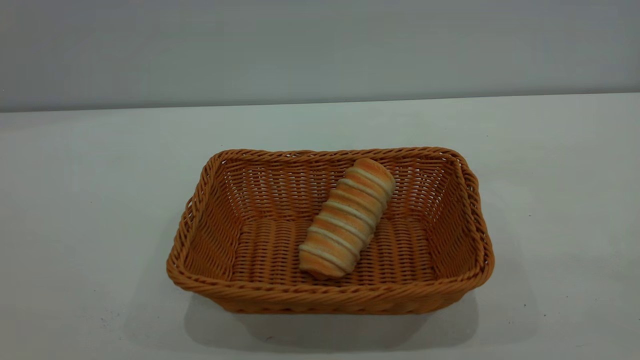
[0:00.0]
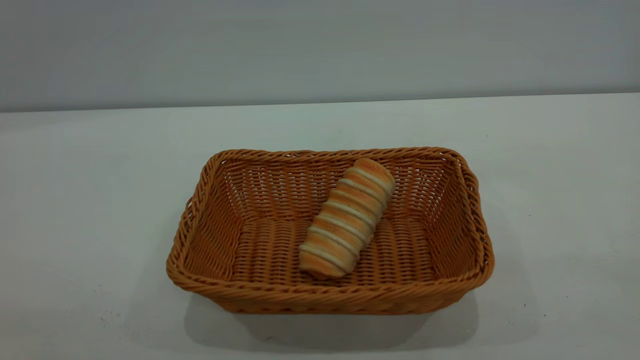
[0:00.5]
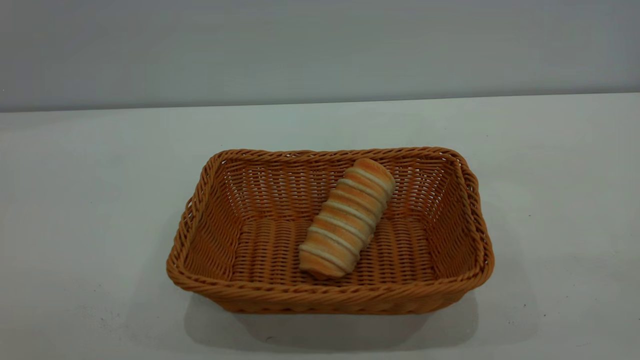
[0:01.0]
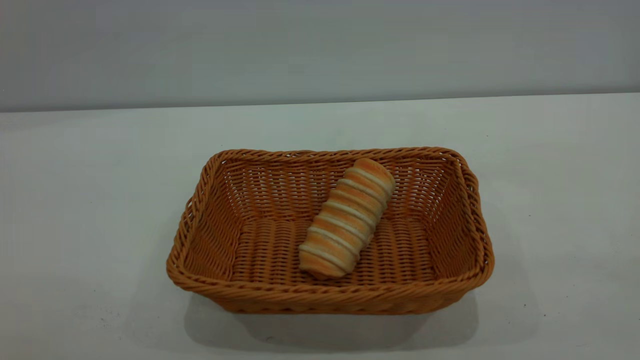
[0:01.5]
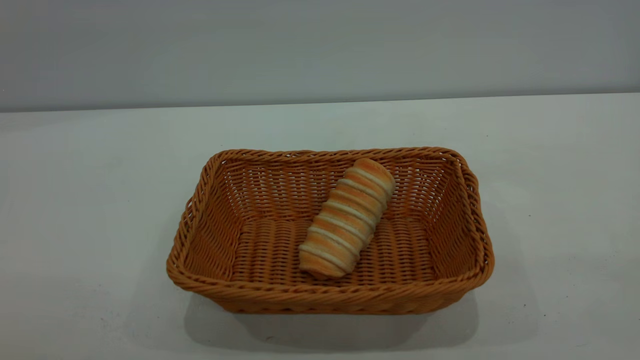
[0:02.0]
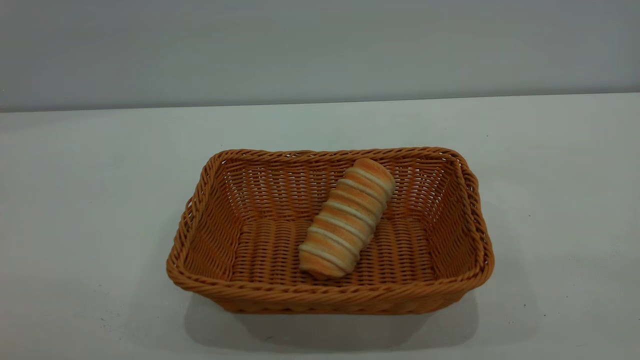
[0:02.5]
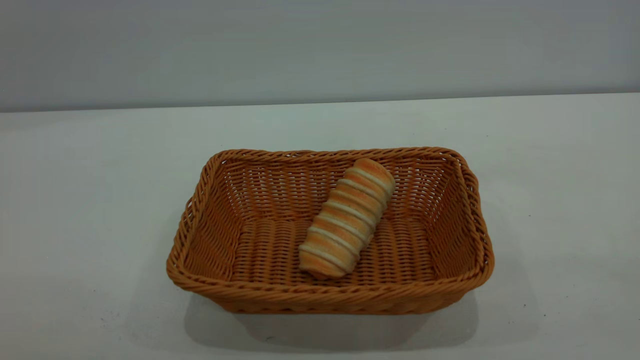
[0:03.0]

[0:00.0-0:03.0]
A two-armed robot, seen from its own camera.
Task of the whole recording: One hand grasps the yellow basket and places it in the middle of the table, while the other hand picks up the long bread and puts it into the yellow basket.
0:01.5 to 0:03.0: Both grippers stay about where they are.
